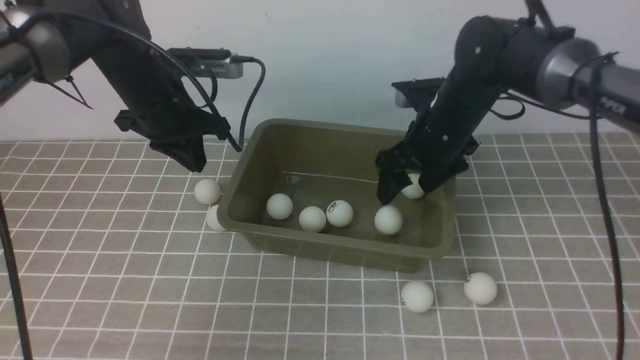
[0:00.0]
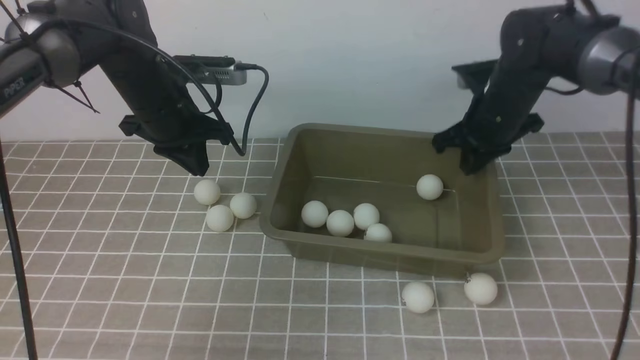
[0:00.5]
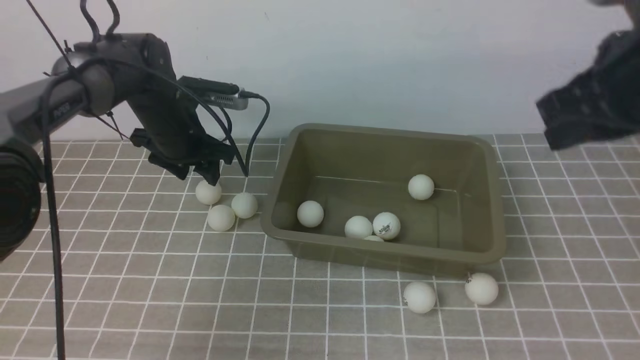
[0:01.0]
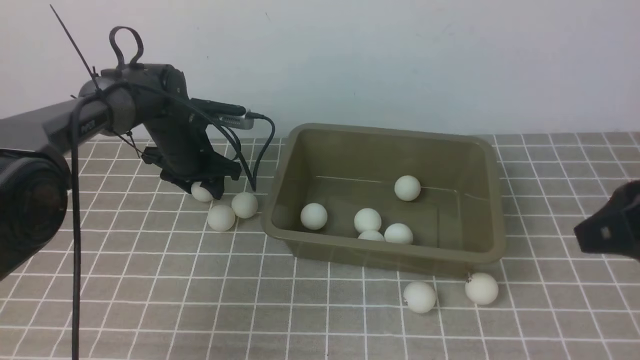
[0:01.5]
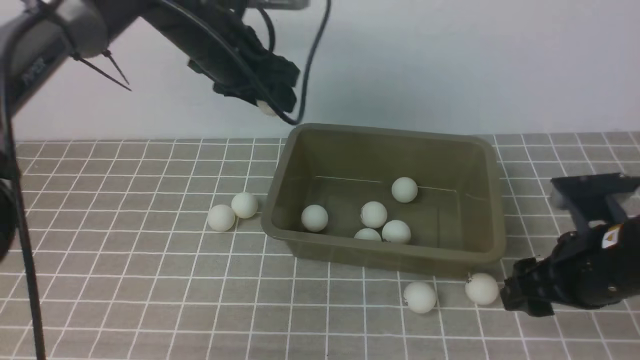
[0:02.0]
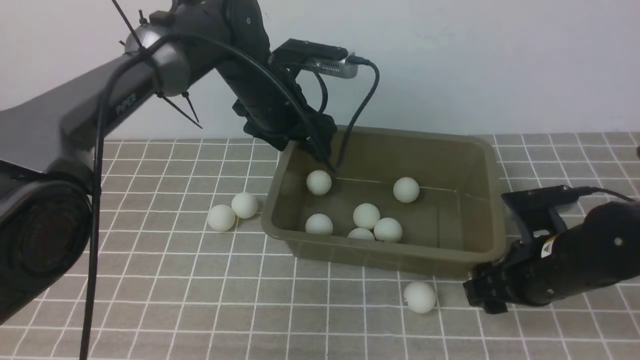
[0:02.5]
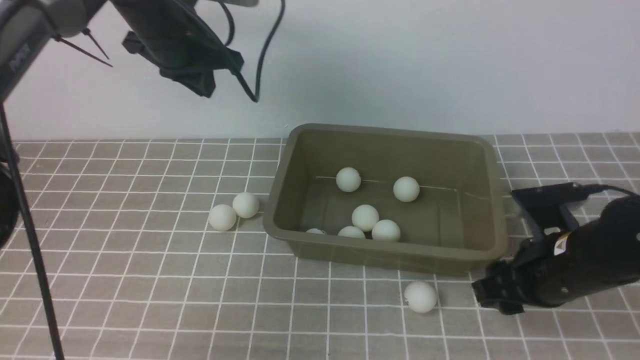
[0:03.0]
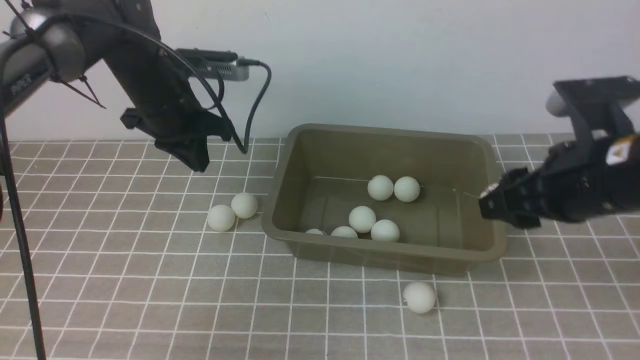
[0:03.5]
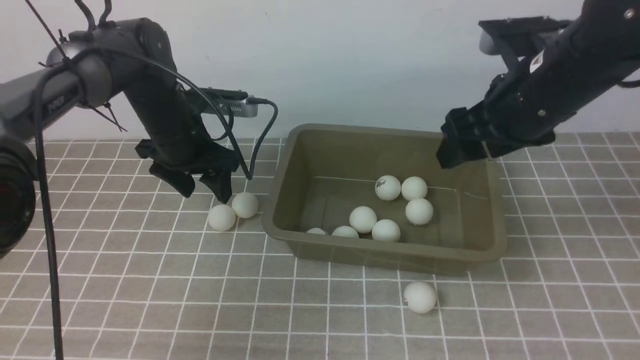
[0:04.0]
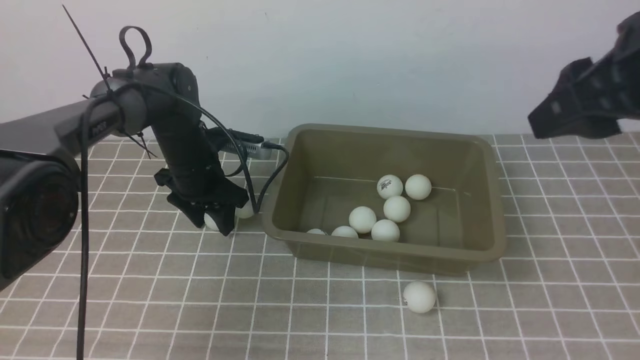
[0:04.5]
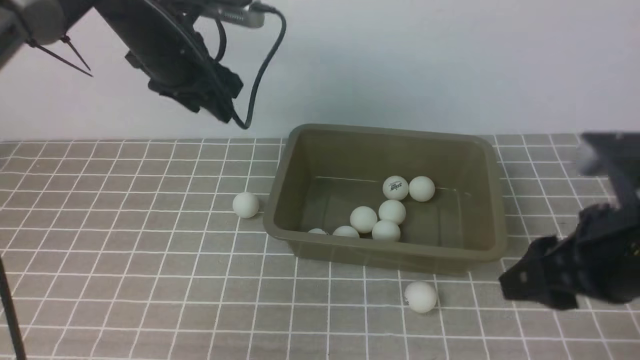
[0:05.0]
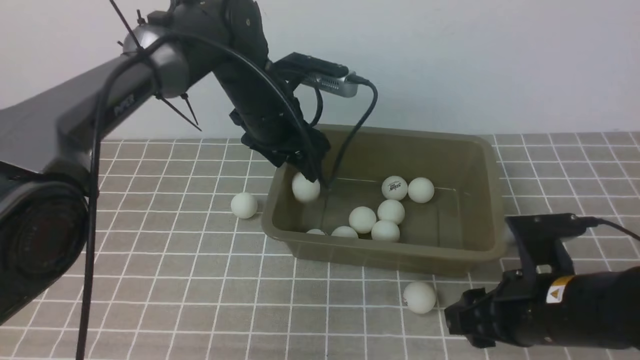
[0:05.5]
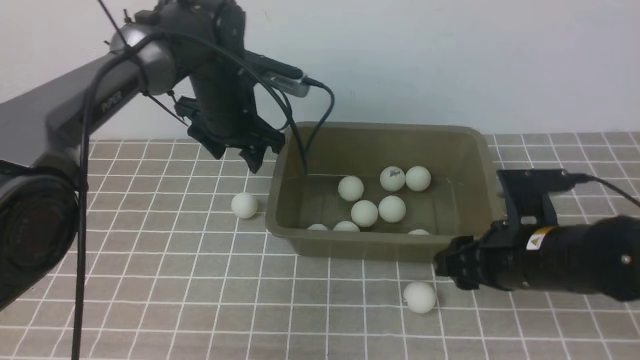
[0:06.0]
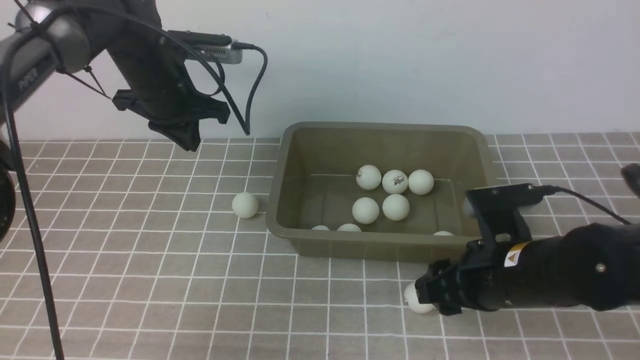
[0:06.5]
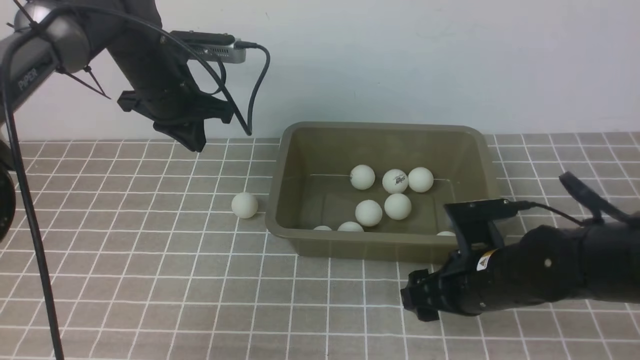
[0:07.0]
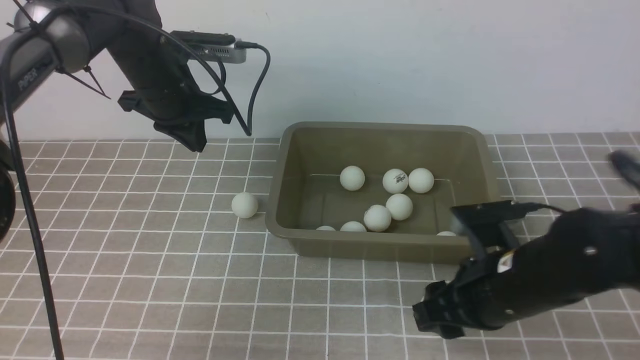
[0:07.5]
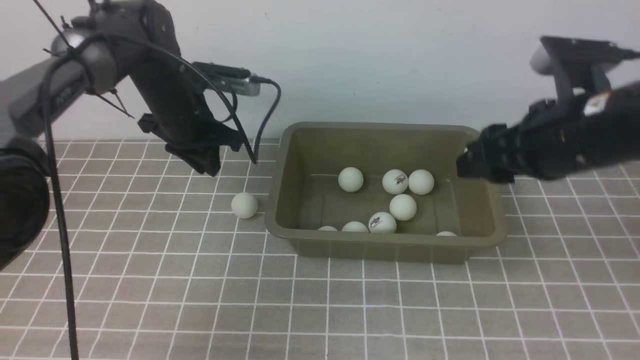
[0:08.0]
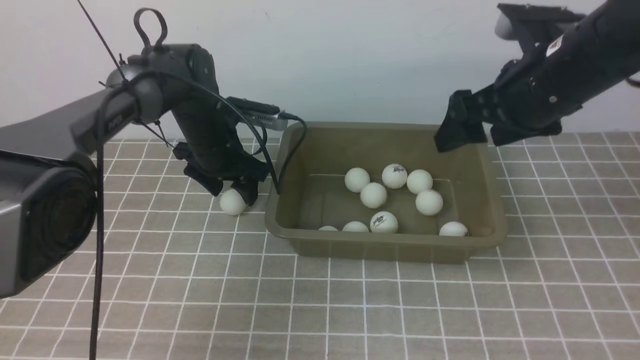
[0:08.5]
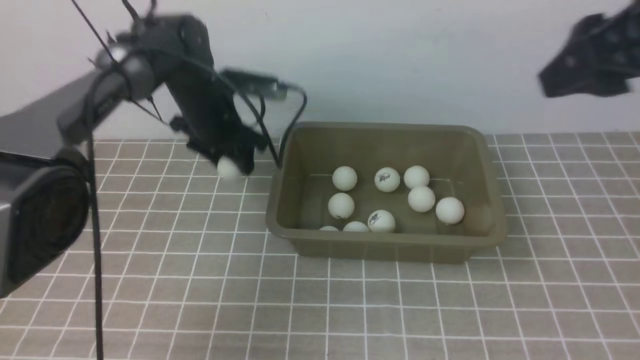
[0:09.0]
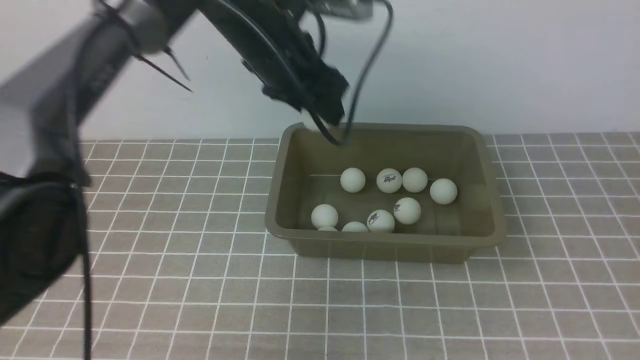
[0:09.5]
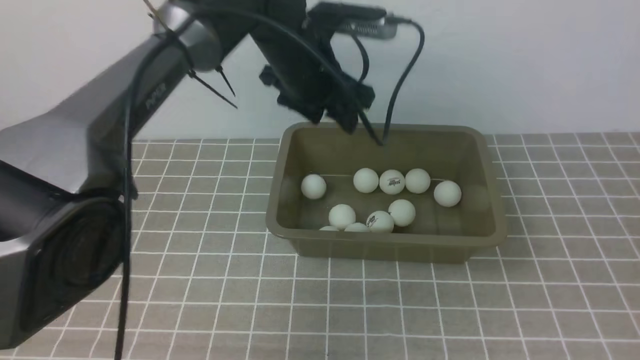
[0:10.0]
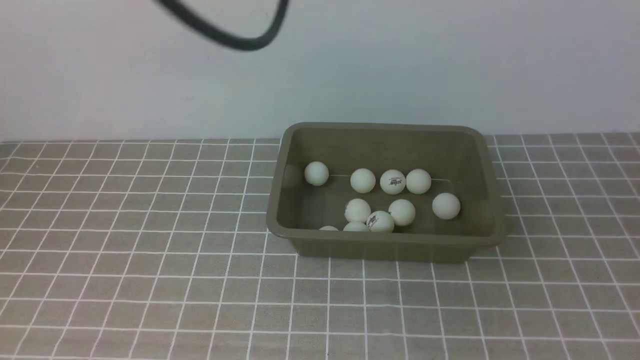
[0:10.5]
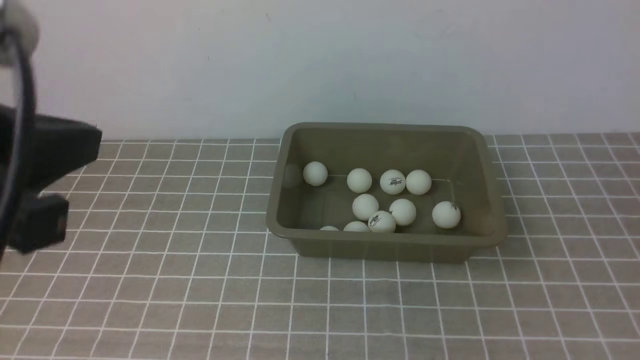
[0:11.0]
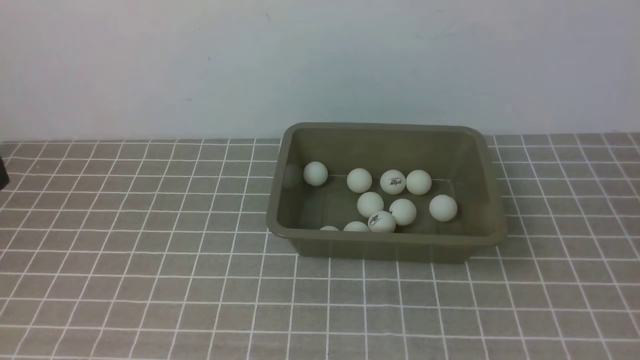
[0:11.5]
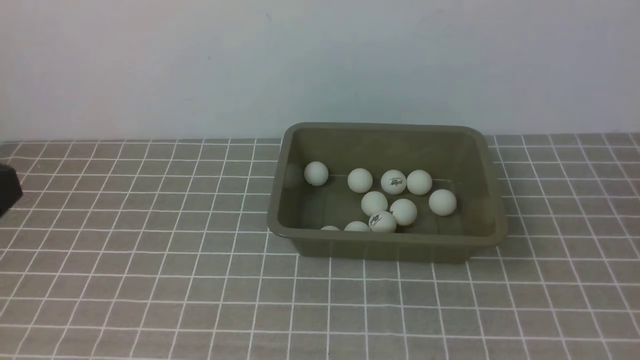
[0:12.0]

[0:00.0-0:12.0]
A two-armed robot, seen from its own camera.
Step, 0:00.5 to 0:01.5: use the left arm to clamp the table tennis ball closest to it.
Step, 0:02.5 to 0:03.0: use the right arm to clamp the table tennis ball closest to it.
Step, 0:05.0 to 0:05.5: use the left arm to put the table tennis ball into the box.
Step, 0:06.0 to 0:07.5: use the right arm to clamp the table tennis ball closest to it.
Step, 0:08.5 to 0:09.0: use the left arm to clamp the table tennis ball closest to it.
0:00.0 to 0:02.0: The left gripper heads to the right, covering approximately 10 cm, travels downward and back again, approximately 5 cm each way, and opens its fingers; the right gripper heads backward and to the right, covering roughly 20 cm, and closes, then reopens.
0:02.0 to 0:04.0: The left gripper shifts roughly 10 cm downward and to the left, and closes, then reopens. Meanwhile the right gripper goes approximately 15 cm upward and forward.
0:04.0 to 0:06.0: The right gripper moves downward and backward, some 15 cm. The left gripper shifts approximately 10 cm to the right and upward.
0:06.0 to 0:08.0: The left gripper moves approximately 5 cm, and closes. The right gripper heads upward, covering approximately 10 cm.
0:08.0 to 0:10.0: The right gripper shifts approximately 30 cm backward, and closes up; the left gripper heads to the right and upward, covering about 20 cm.
0:10.0 to 0:12.0: The left gripper goes some 40 cm backward and to the left, and closes its fingers.

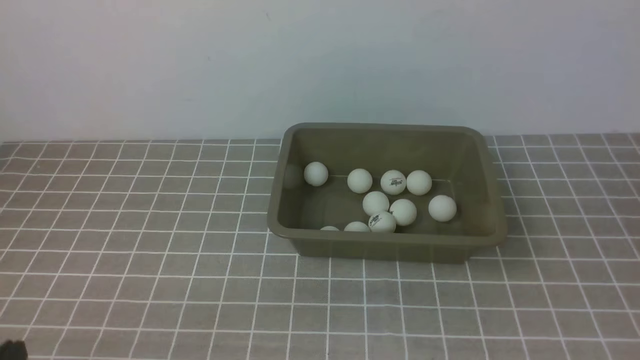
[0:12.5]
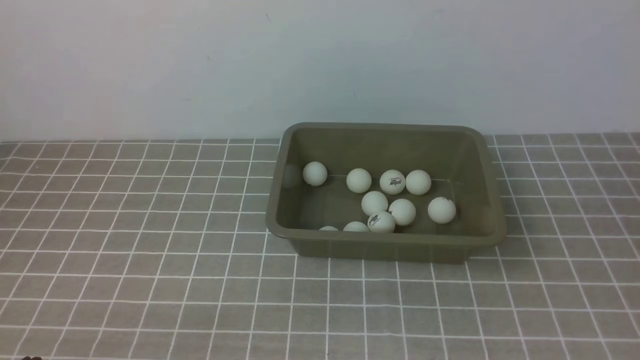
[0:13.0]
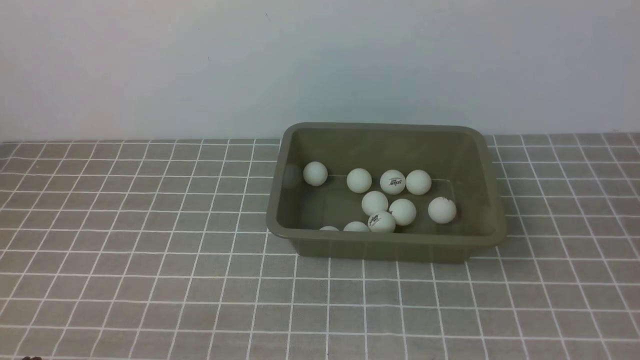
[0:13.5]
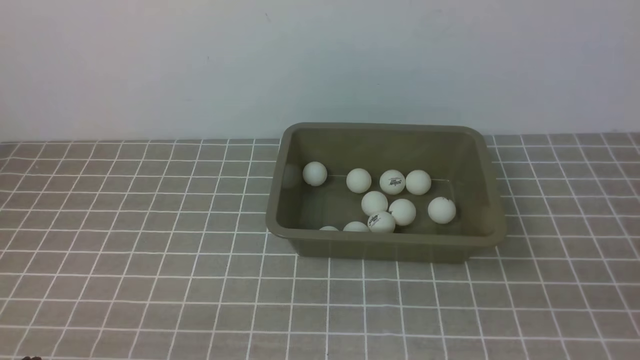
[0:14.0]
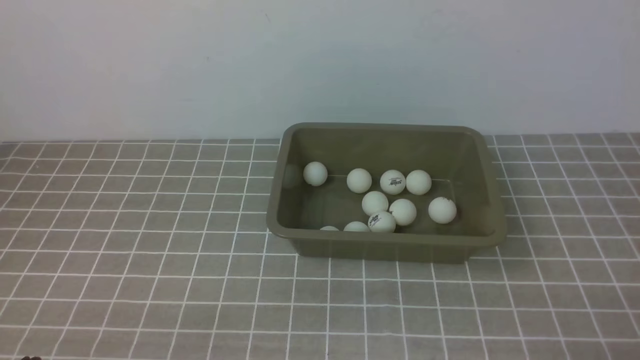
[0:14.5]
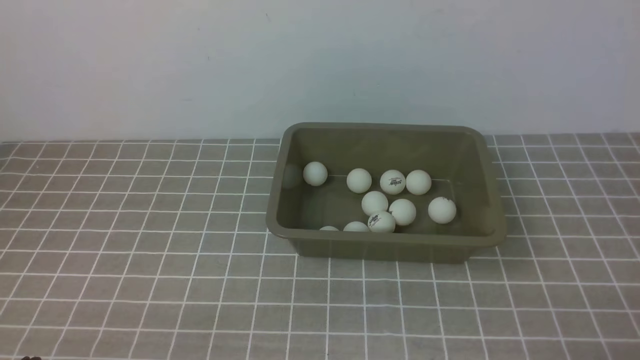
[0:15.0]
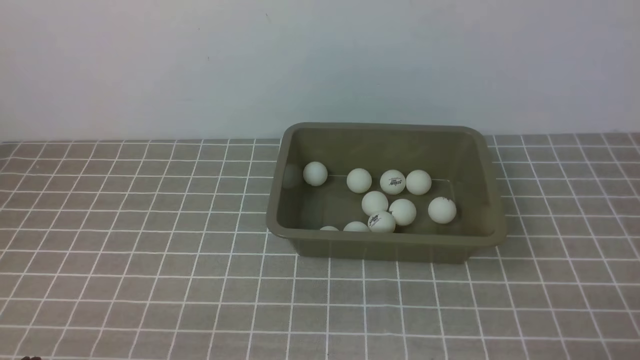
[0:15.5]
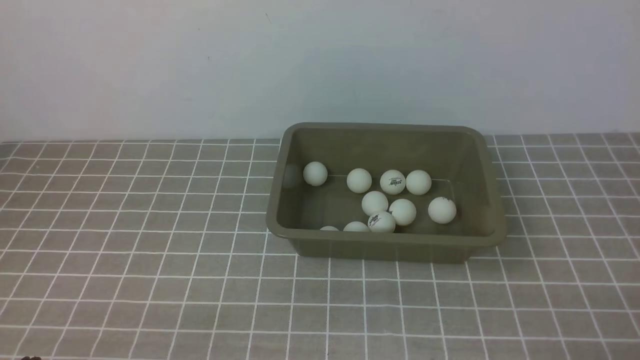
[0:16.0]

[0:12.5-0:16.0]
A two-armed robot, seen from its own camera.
0:14.5 to 0:16.0: Neither gripper changes place.
